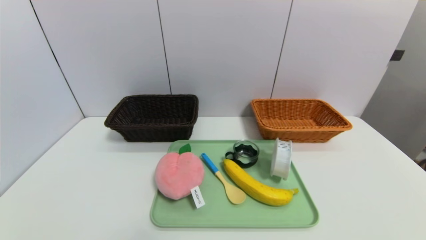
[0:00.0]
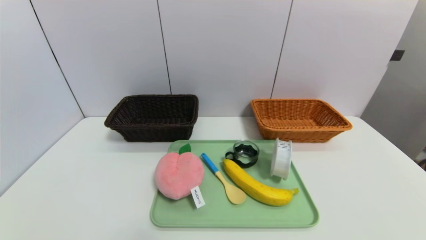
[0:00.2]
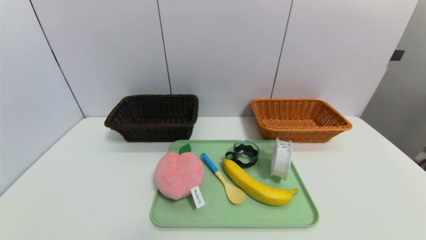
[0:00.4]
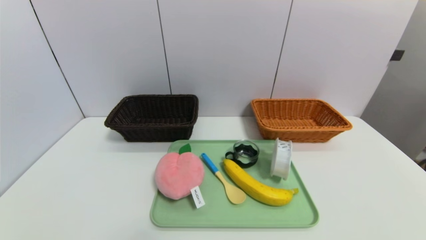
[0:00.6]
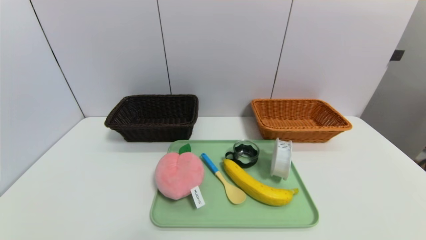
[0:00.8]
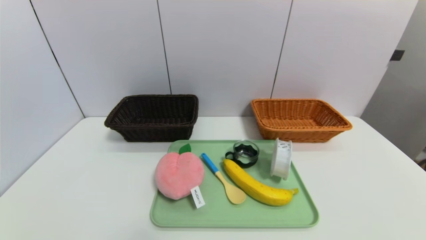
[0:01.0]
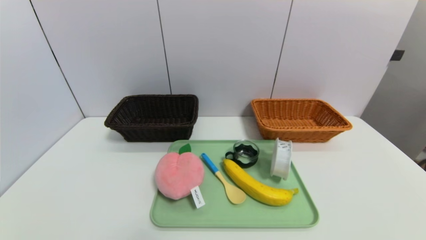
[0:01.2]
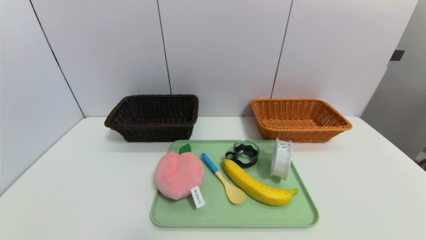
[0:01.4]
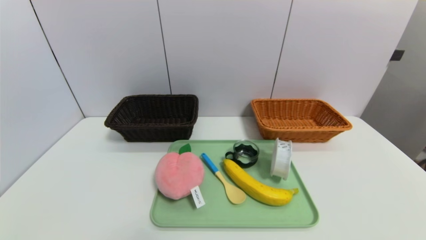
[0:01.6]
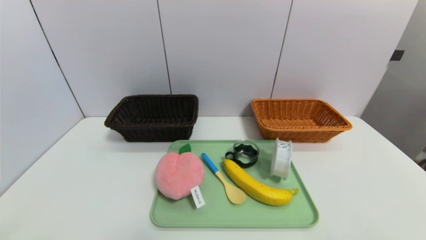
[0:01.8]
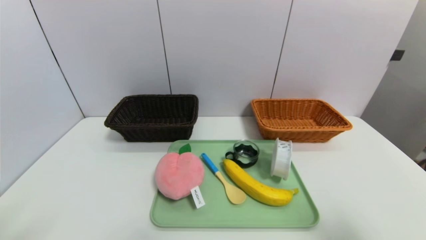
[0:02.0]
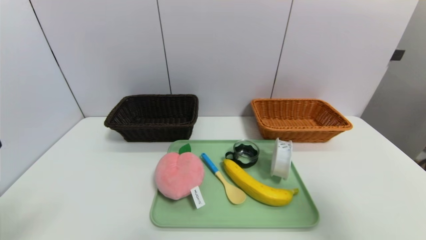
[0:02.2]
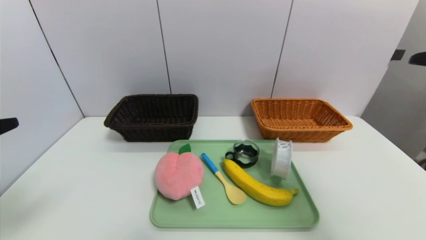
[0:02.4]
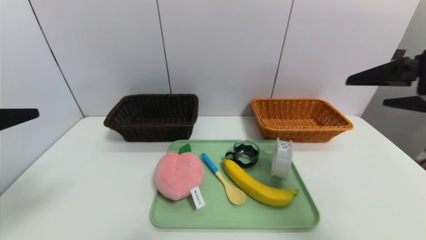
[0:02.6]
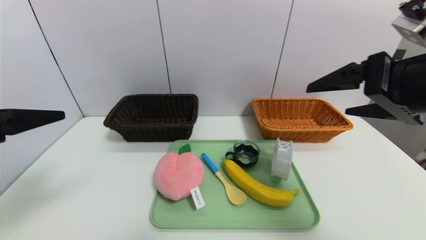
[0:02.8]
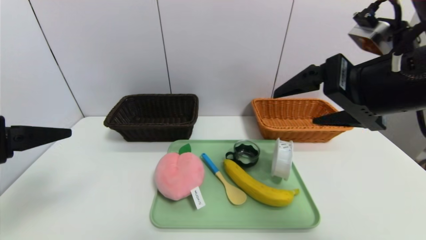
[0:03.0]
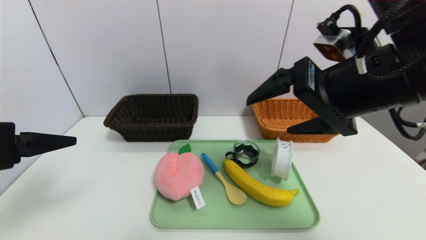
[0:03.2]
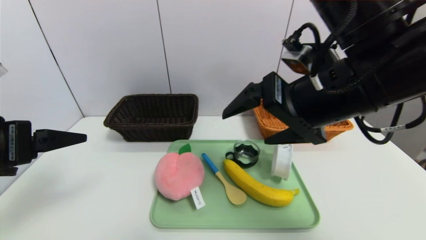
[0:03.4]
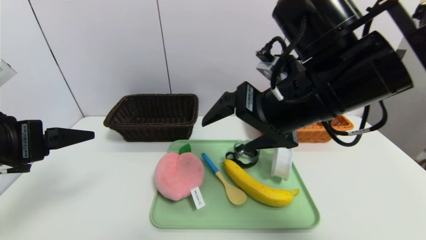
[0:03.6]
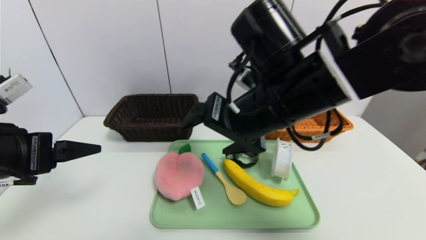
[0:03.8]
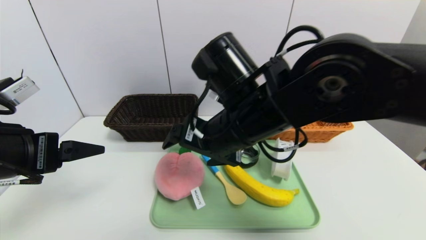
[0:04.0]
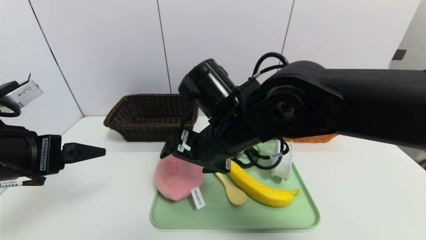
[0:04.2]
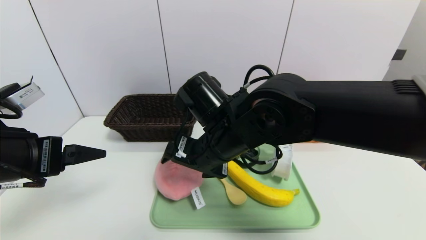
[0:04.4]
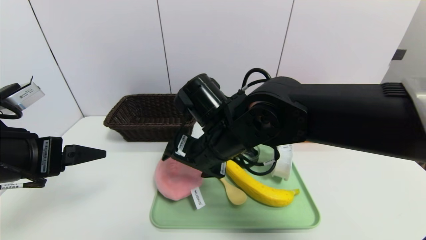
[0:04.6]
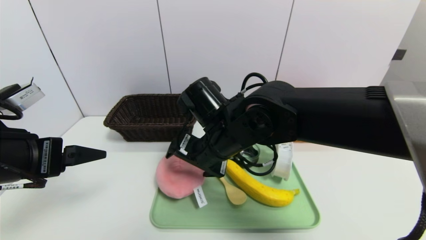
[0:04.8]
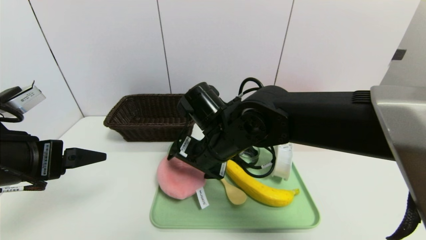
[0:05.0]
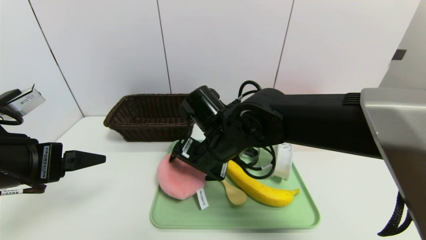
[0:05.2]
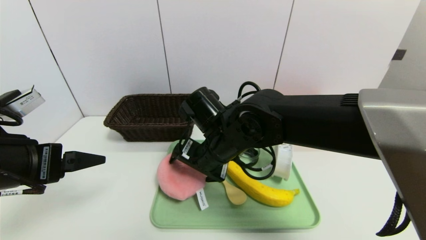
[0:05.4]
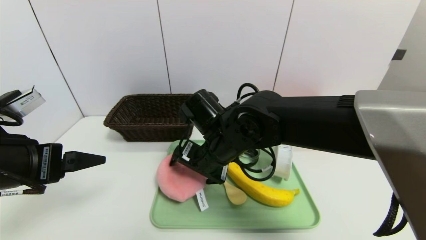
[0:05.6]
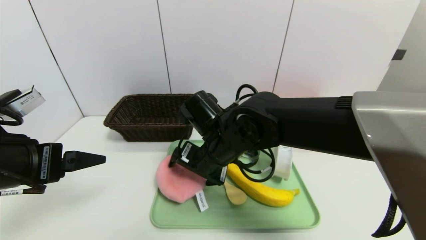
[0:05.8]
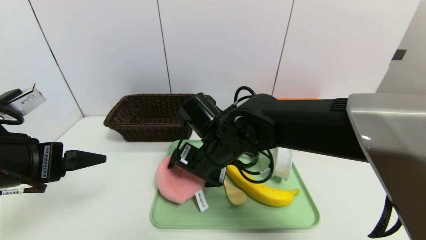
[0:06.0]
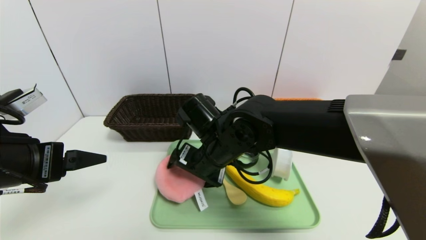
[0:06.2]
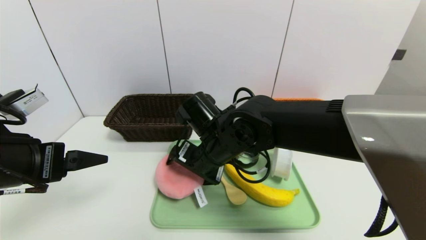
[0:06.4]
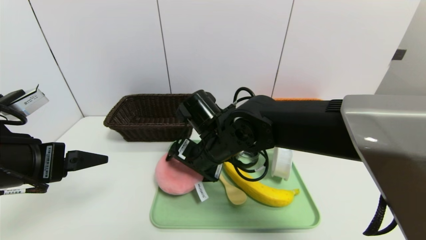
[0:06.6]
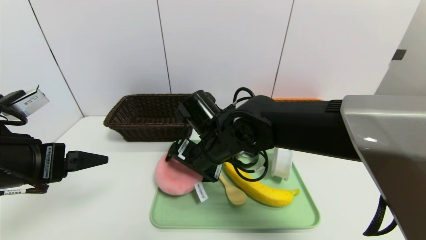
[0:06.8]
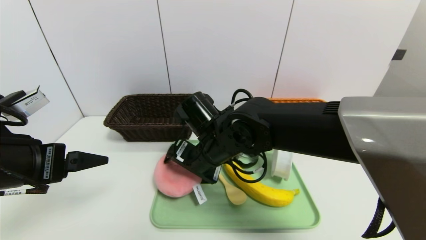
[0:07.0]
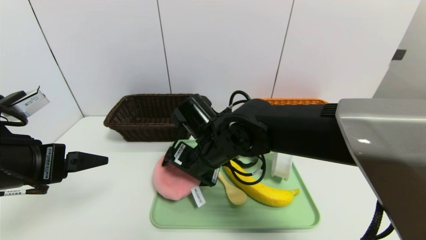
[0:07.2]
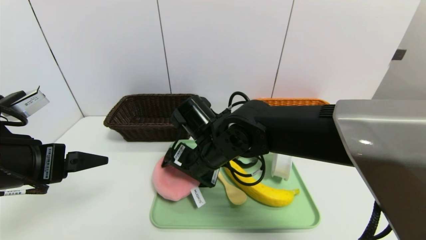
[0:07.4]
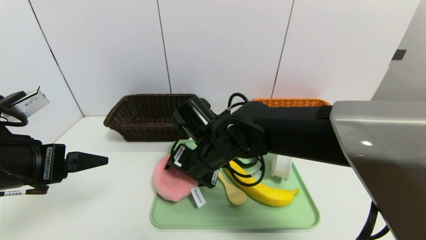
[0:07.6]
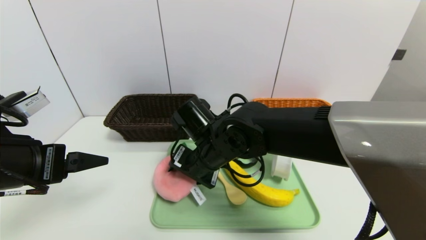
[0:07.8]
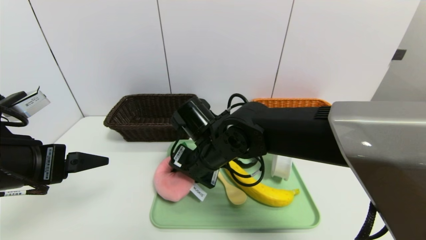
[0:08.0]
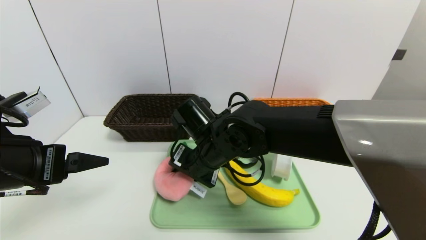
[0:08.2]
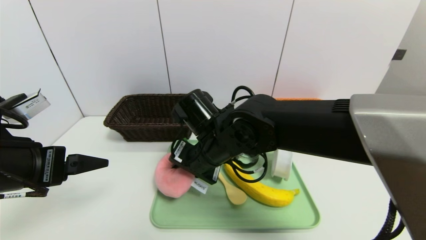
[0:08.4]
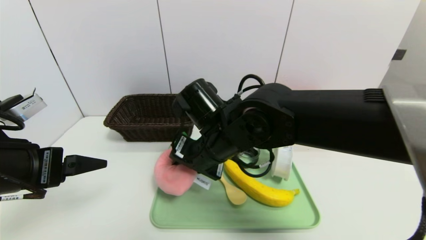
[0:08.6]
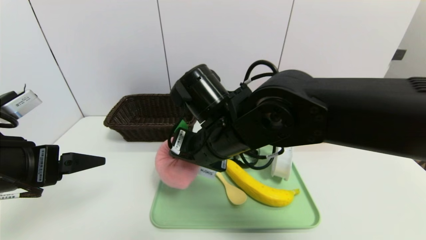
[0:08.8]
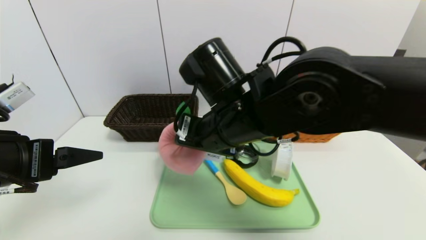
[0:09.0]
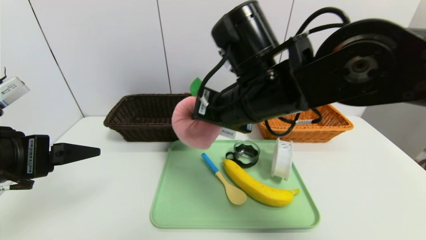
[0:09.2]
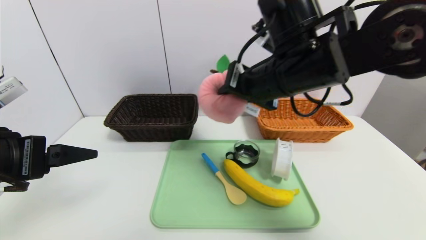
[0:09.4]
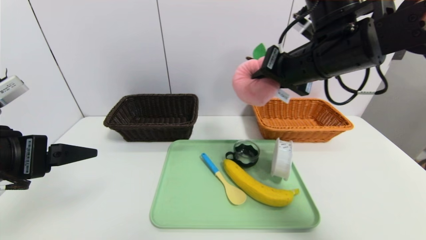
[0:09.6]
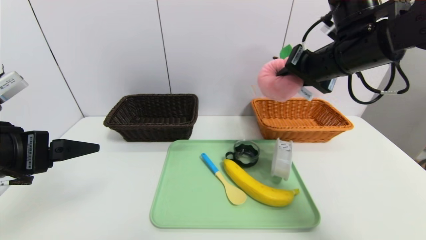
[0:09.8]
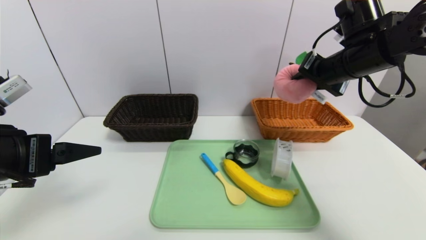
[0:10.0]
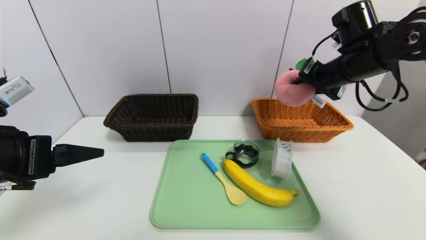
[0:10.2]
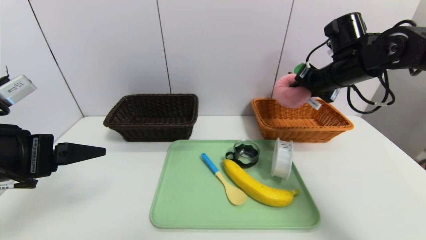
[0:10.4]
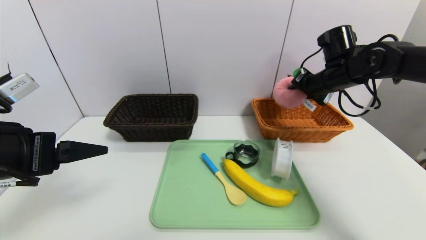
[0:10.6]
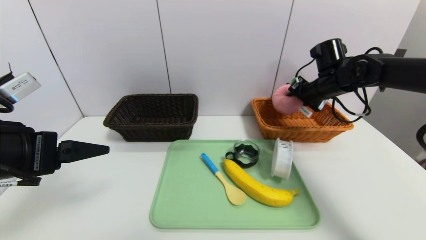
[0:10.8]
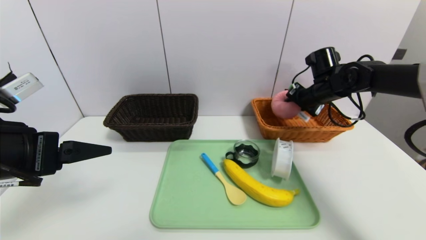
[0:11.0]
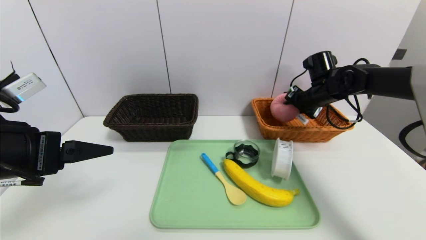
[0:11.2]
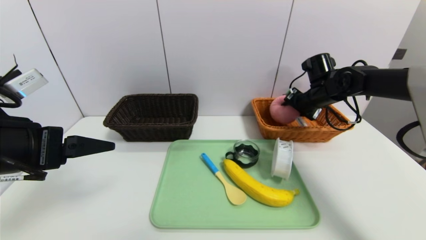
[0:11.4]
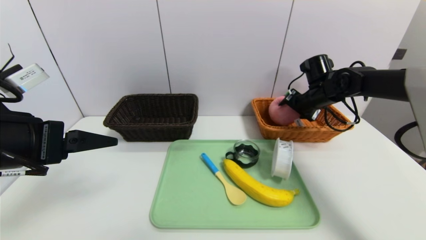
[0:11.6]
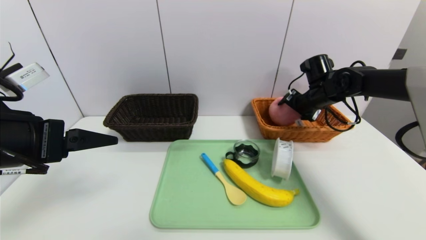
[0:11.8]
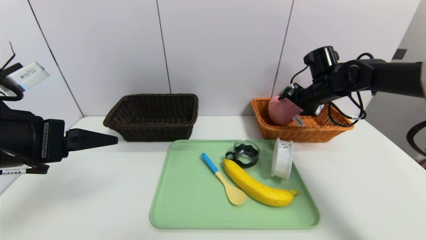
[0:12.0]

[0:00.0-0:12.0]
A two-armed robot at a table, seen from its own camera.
Task of the whole recording: place the food in the right basket with the right gripper, and place the non food items in the left basket with the left gripper.
0:01.6 to 0:03.0: The right gripper heads upward, forward and to the left, covering some 30 cm. Meanwhile the left gripper is displaced upward and forward by about 20 cm.
0:03.0 to 0:04.4: The right gripper goes about 20 cm to the left and downward. Meanwhile the left gripper changes place by about 5 cm.
0:04.4 to 0:06.0: The right gripper ends up roughly 5 cm from where it was.
0:06.0 to 0:07.6: There are only small adjustments of the grippers.
0:07.6 to 0:09.0: The right gripper shifts approximately 10 cm upward, and closes.
0:09.0 to 0:10.4: The right gripper heads to the right and forward, covering approximately 30 cm.
0:10.4 to 0:12.0: The right gripper is displaced downward by about 5 cm, and opens.

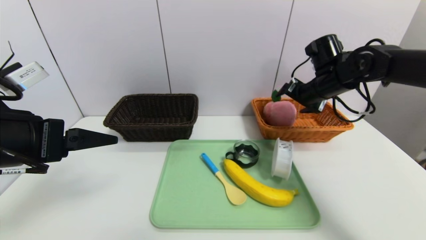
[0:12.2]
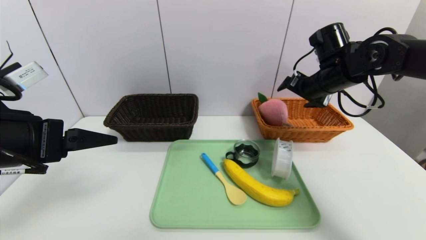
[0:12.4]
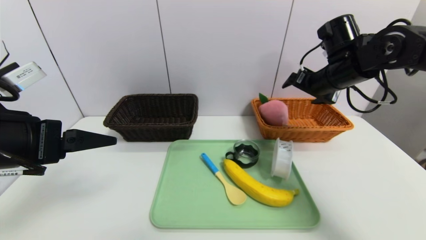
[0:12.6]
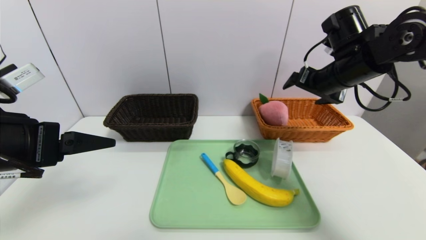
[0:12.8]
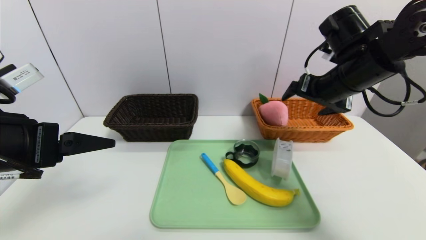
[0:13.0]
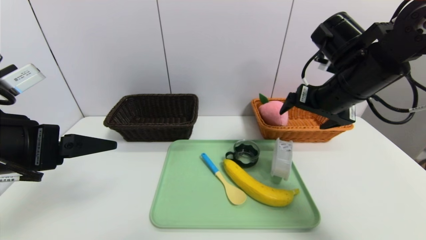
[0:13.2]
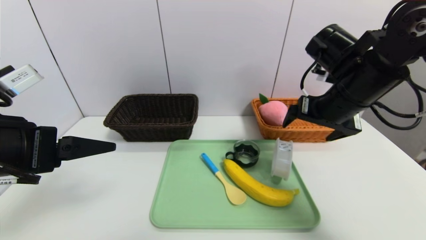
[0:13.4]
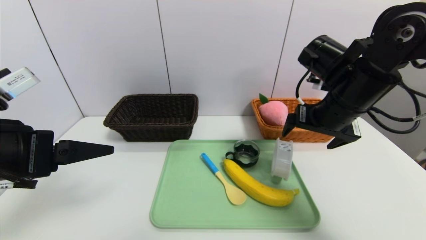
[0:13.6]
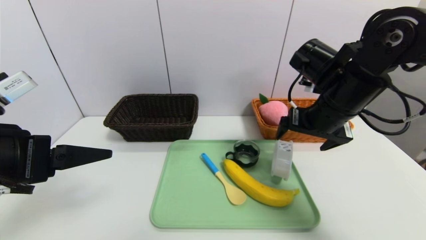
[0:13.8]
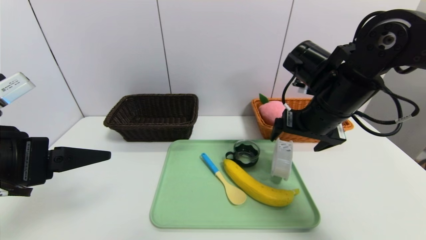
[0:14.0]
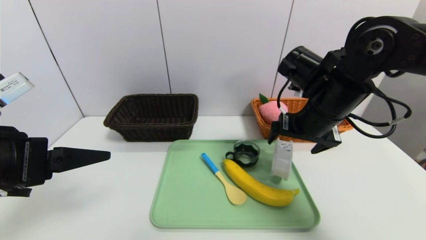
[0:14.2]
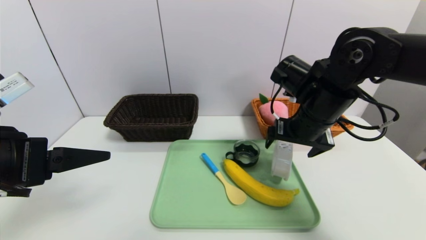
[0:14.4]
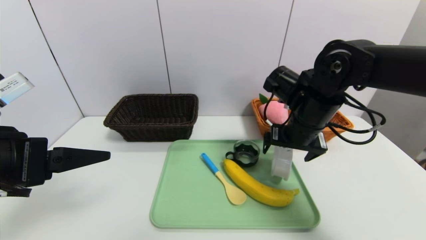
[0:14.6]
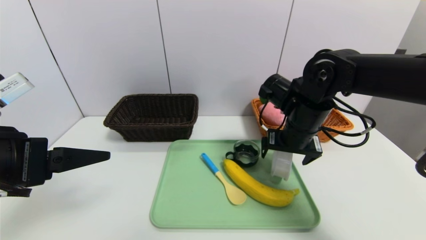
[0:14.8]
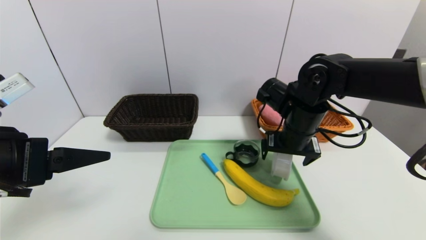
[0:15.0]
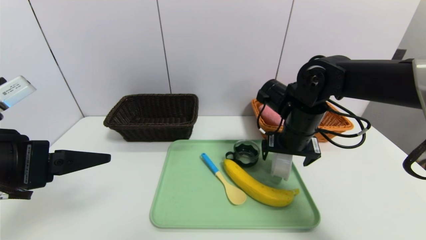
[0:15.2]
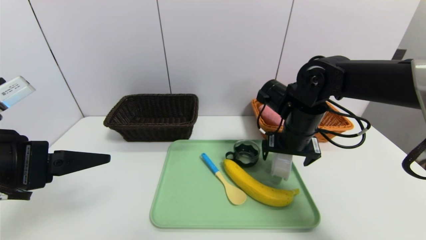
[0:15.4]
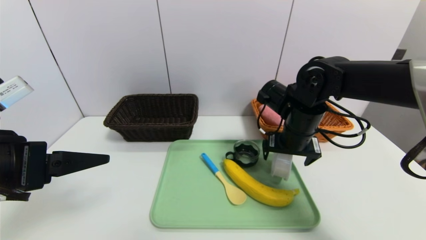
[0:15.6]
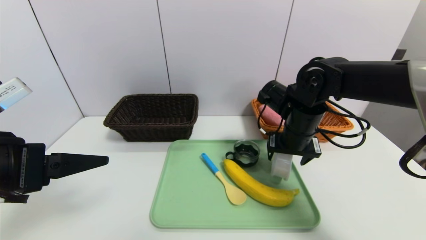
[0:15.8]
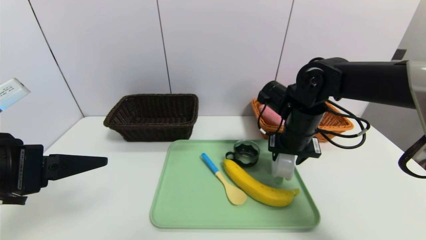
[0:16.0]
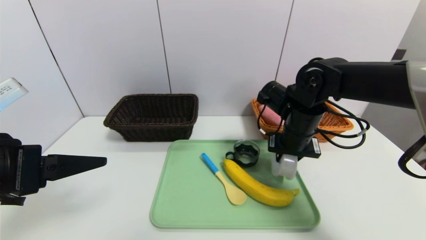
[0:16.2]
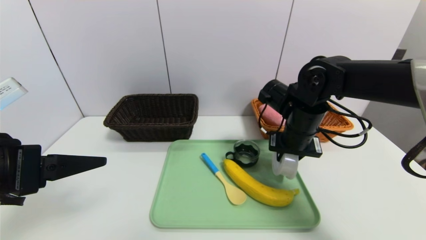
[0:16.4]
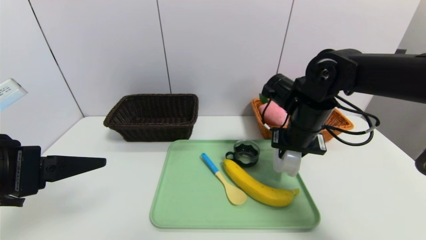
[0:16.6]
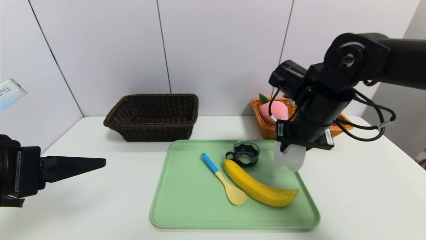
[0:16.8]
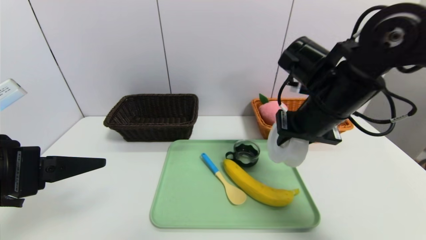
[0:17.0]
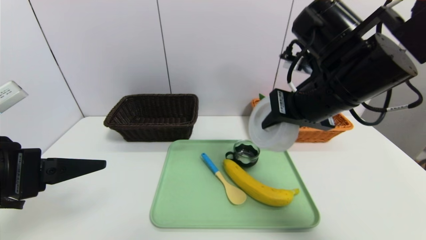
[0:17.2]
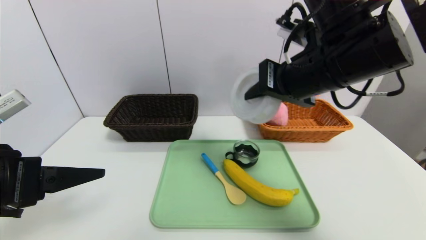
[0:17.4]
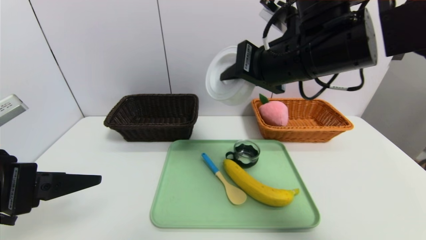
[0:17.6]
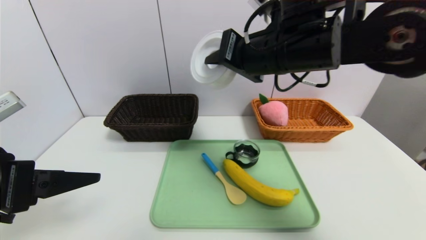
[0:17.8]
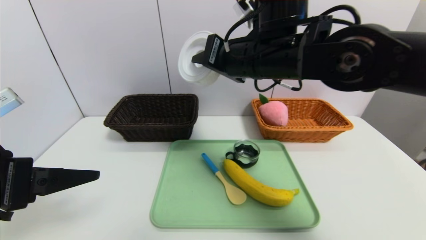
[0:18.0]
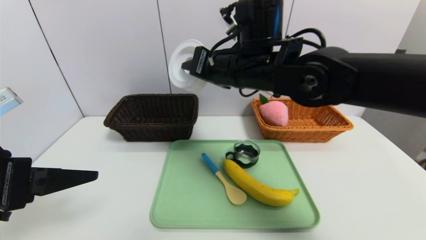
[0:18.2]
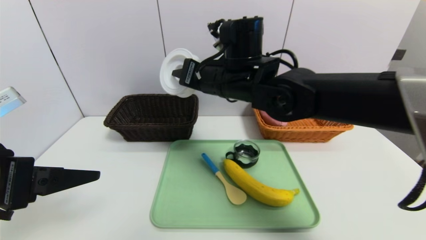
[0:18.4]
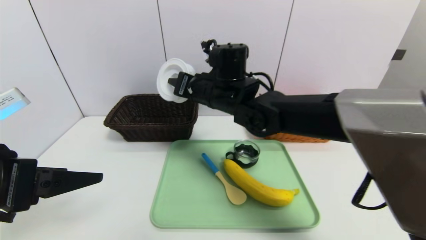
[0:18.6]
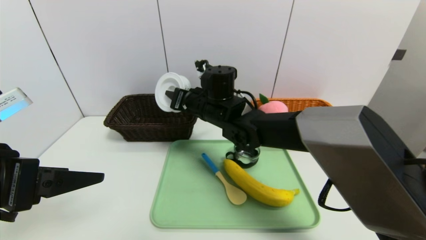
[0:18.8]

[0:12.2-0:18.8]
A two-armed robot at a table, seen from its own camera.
Task of the whole recording: place the food in the right basket with the right gripper, and place the non food items in the left basket with the left gripper.
0:12.2 to 0:13.8: The right gripper moves backward and to the left, about 10 cm.
0:13.8 to 0:15.4: The right gripper moves downward, about 5 cm.
0:15.4 to 0:17.2: The right gripper is displaced upward and backward by about 15 cm, and closes.
0:17.2 to 0:18.8: The right gripper is displaced to the left, forward and downward by about 25 cm.
